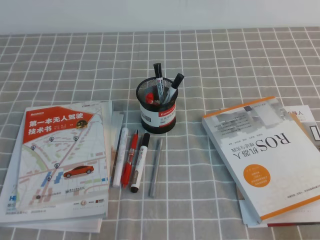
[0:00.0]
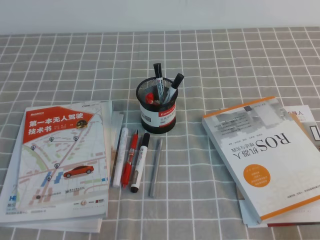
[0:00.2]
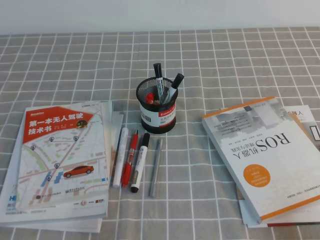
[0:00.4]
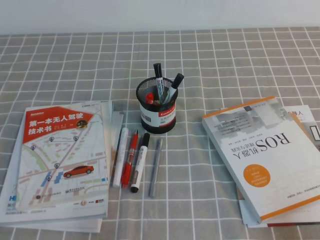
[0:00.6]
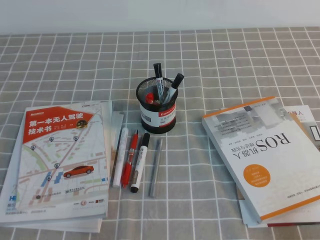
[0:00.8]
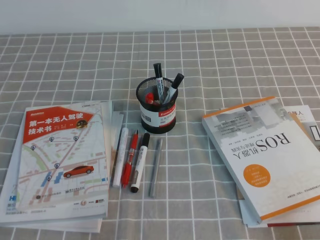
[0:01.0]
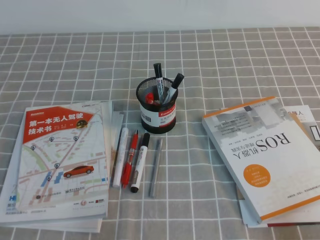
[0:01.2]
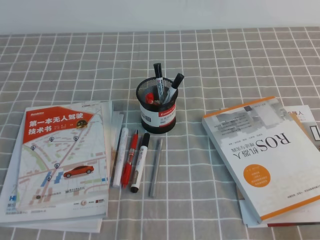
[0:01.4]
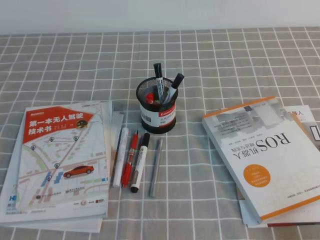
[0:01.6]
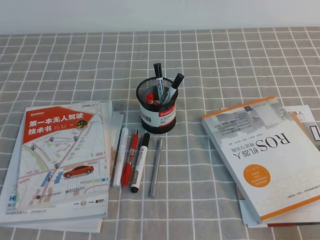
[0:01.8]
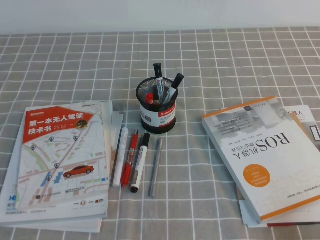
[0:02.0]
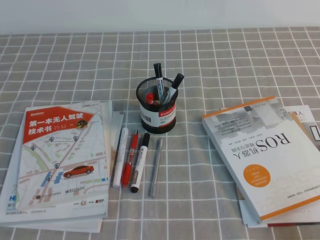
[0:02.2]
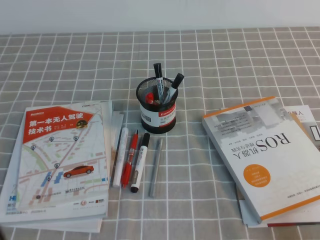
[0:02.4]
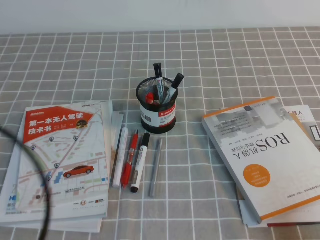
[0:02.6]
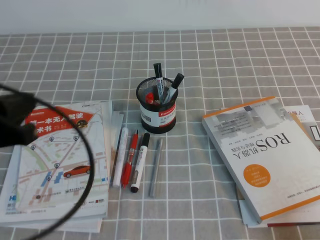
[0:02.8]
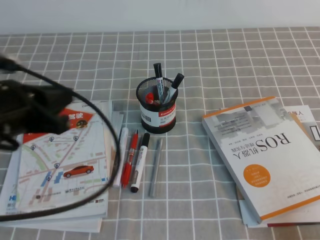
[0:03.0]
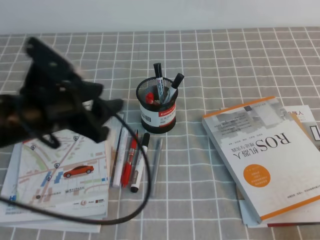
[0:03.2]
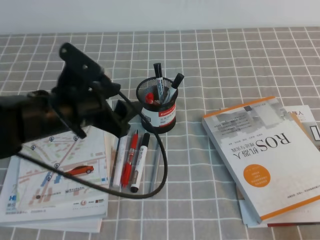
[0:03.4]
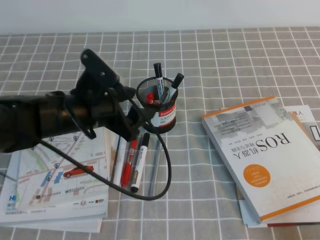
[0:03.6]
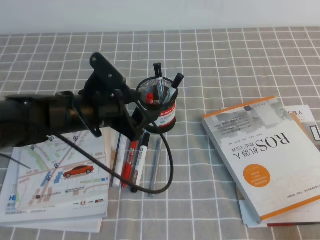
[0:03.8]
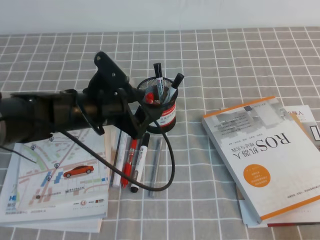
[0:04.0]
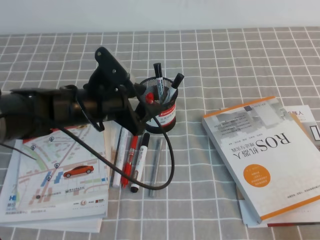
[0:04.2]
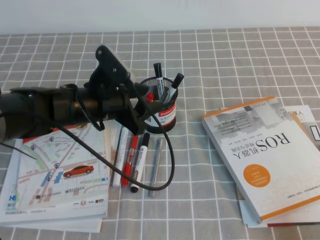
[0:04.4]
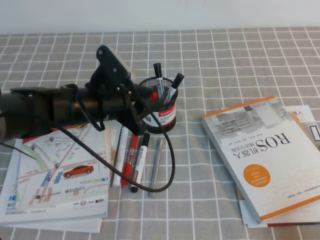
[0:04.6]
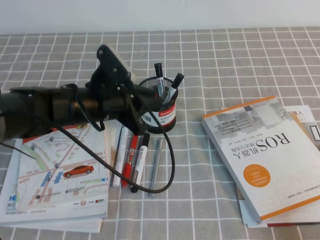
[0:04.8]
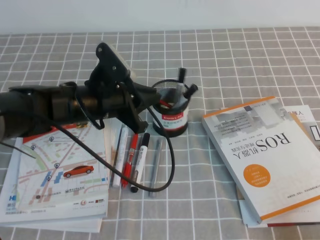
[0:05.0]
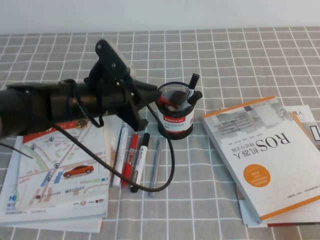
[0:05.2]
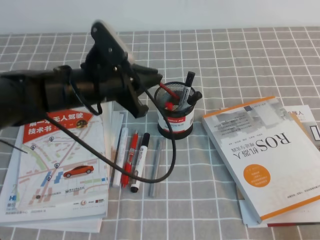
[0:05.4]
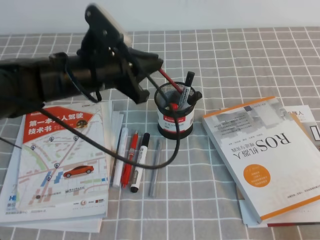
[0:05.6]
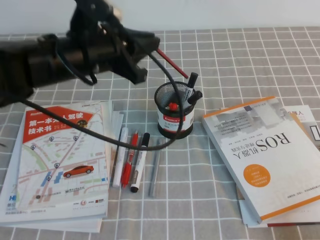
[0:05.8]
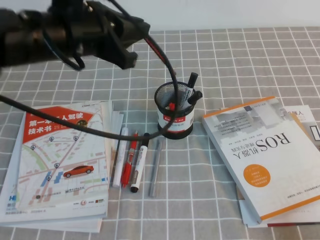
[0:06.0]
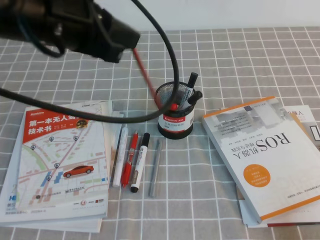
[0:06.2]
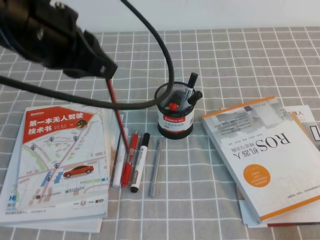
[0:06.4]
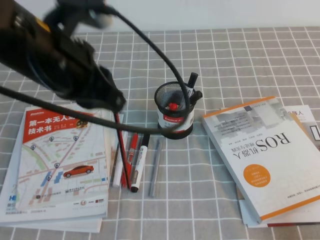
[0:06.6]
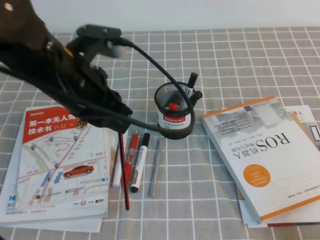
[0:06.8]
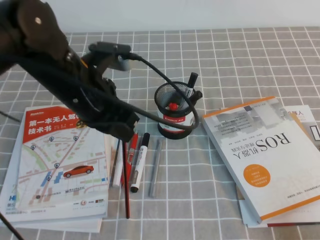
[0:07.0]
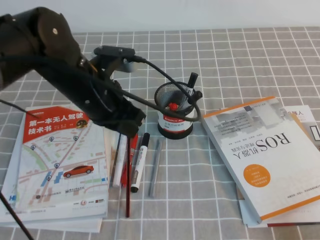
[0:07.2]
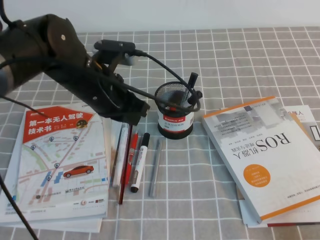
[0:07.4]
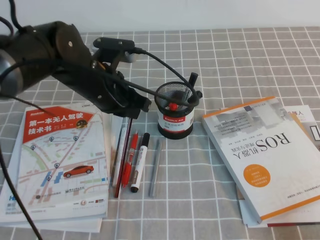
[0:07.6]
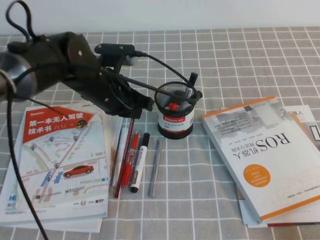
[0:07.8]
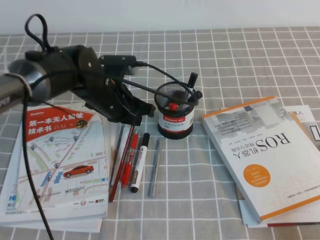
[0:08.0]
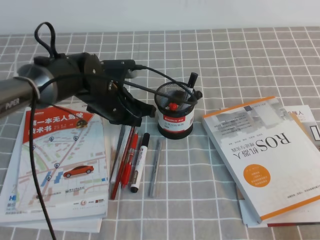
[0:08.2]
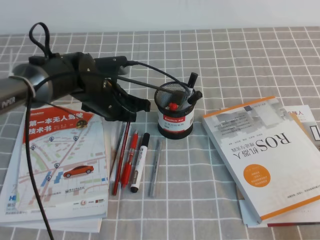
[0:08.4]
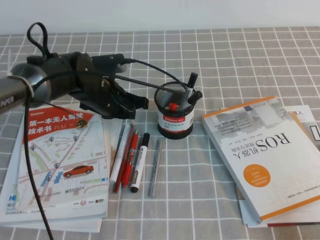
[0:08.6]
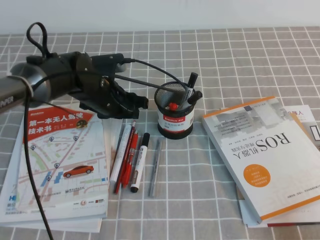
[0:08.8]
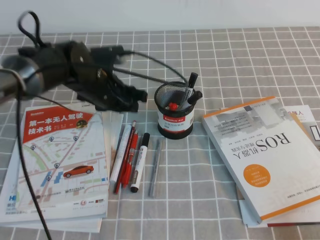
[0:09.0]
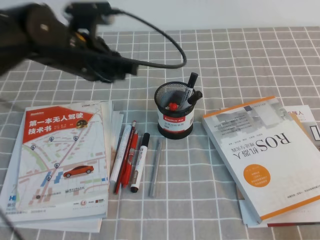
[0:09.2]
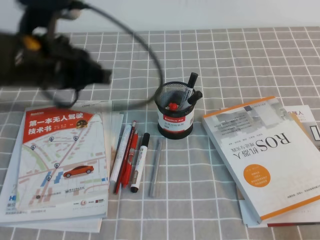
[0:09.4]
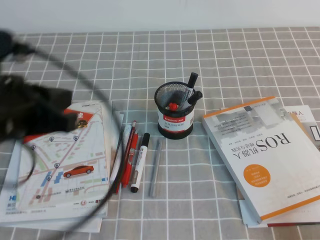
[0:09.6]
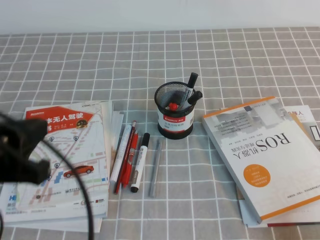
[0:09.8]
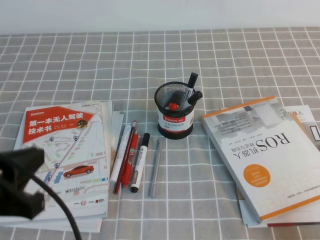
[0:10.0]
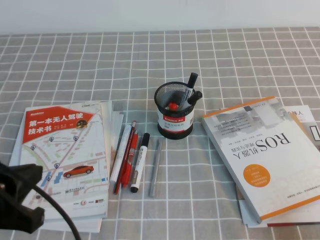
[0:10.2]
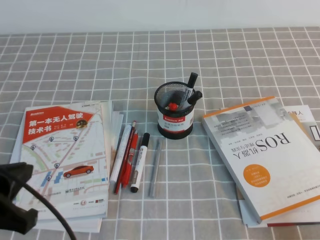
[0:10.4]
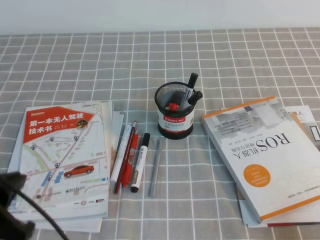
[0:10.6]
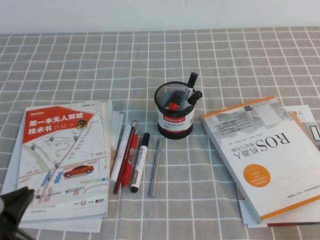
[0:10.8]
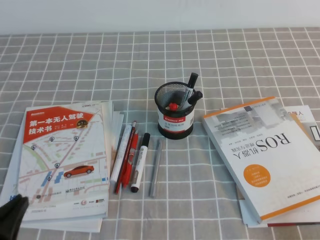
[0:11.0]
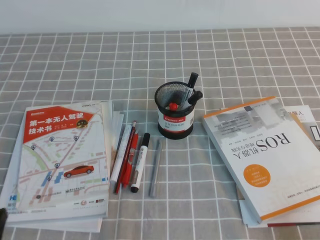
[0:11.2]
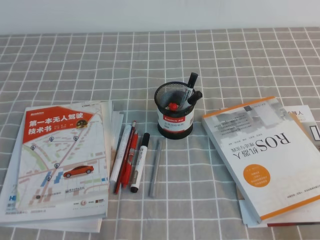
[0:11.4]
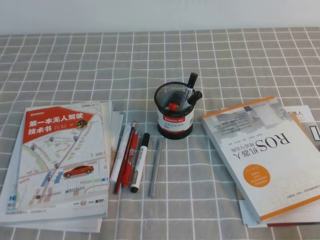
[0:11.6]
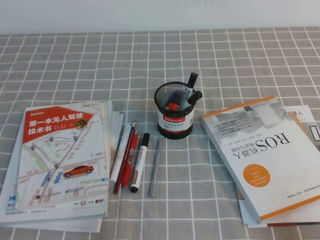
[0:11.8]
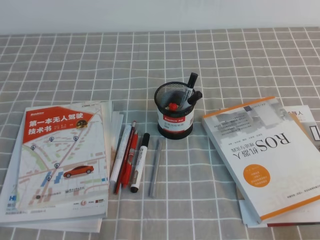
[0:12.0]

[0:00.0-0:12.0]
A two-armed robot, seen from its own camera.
0:01.6 to 0:03.0: The left gripper travels forward, upward and to the right by about 20 cm.
0:03.0 to 0:04.4: The left gripper is displaced forward, to the right and downward by some 20 cm, and opens its fingers.
0:04.4 to 0:06.0: The left gripper moves upward, some 15 cm, and closes up.
0:06.0 to 0:07.6: The left gripper heads downward, covering roughly 10 cm.
0:07.6 to 0:09.0: The left gripper opens.
0:09.0 to 0:10.4: The left gripper moves backward and to the left, approximately 30 cm, and closes its fingers.
0:10.4 to 0:12.0: The left gripper moves downward and backward, about 15 cm.

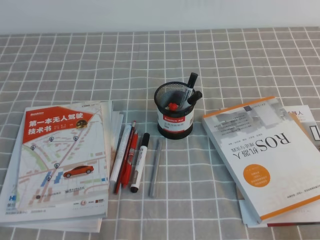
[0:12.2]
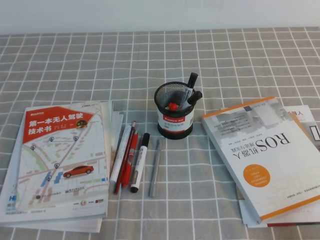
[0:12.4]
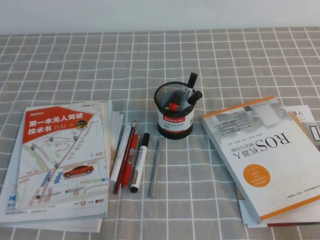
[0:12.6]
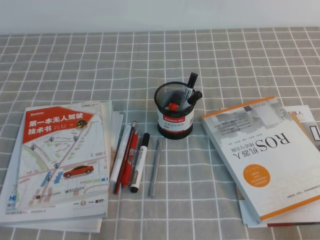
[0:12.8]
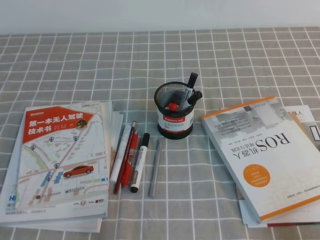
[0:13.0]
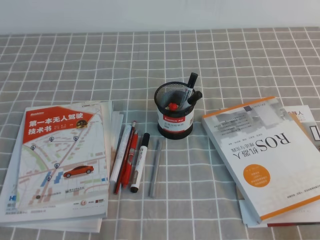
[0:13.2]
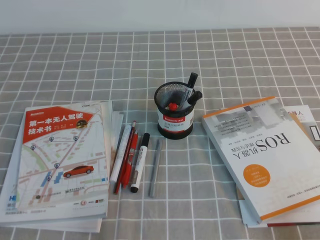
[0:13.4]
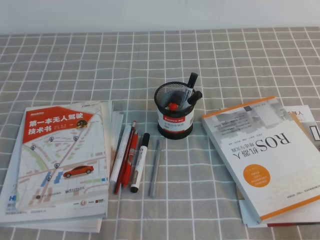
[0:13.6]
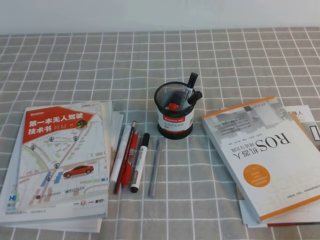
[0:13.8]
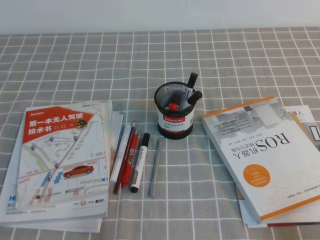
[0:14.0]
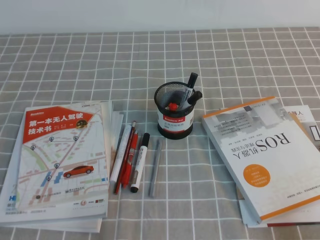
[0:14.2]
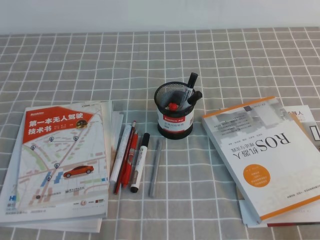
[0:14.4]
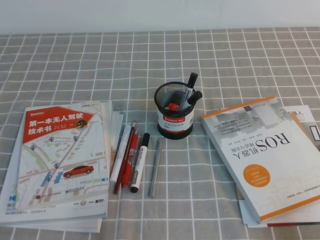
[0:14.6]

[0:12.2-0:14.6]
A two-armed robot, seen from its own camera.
0:12.2 to 0:14.6: Neither gripper changes place.

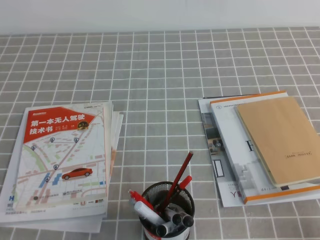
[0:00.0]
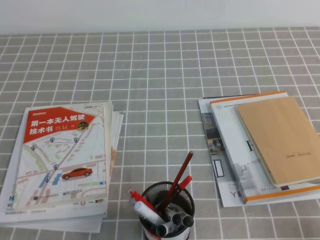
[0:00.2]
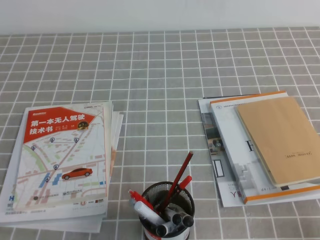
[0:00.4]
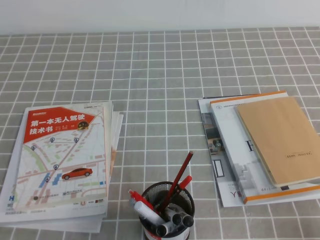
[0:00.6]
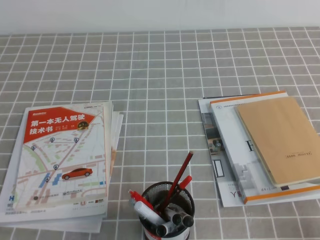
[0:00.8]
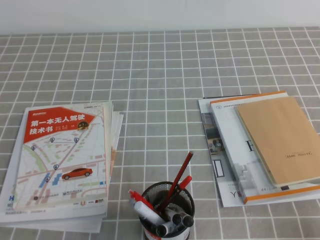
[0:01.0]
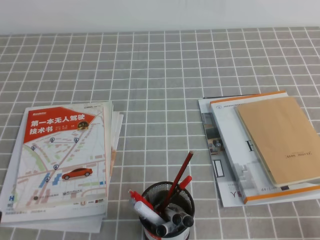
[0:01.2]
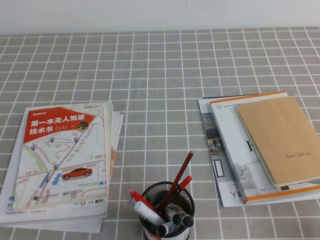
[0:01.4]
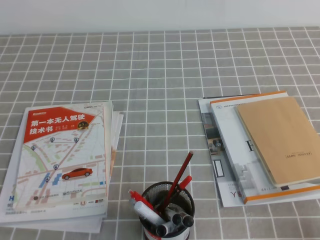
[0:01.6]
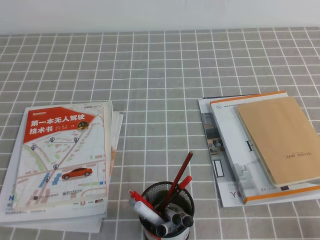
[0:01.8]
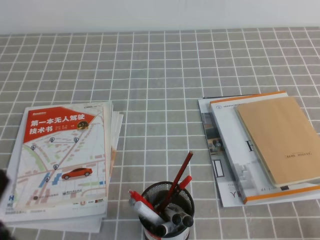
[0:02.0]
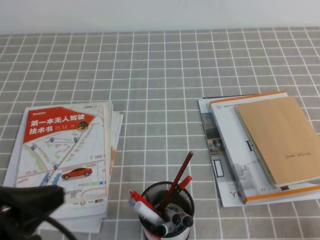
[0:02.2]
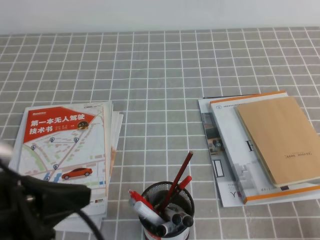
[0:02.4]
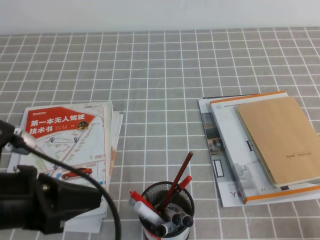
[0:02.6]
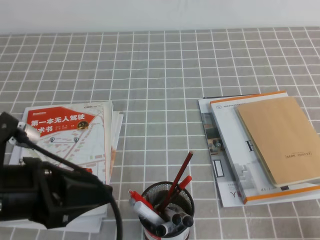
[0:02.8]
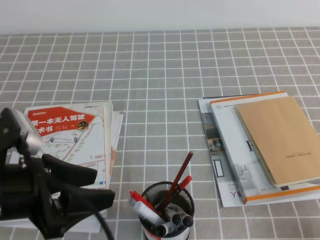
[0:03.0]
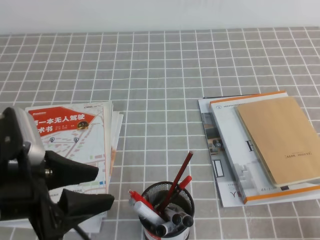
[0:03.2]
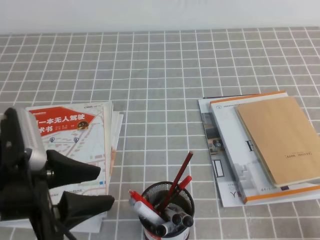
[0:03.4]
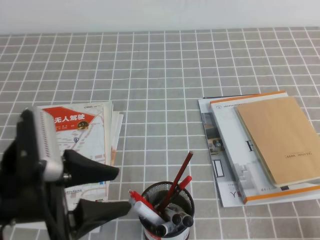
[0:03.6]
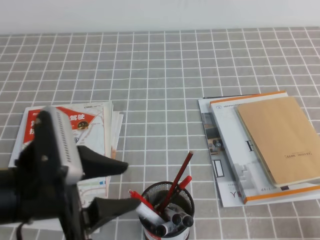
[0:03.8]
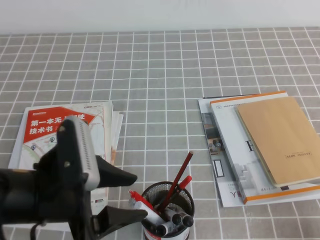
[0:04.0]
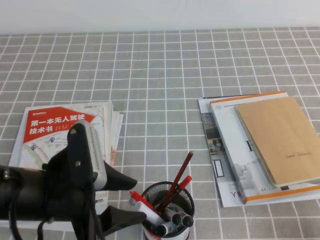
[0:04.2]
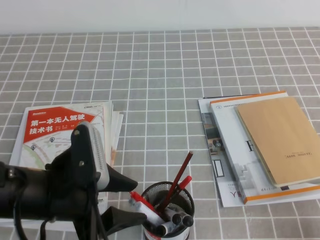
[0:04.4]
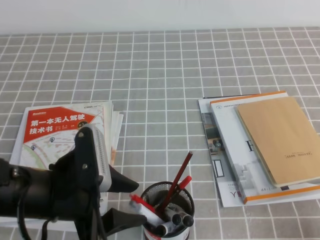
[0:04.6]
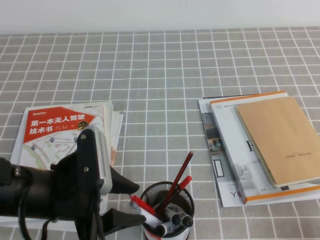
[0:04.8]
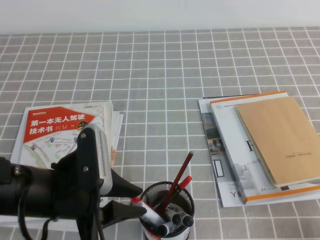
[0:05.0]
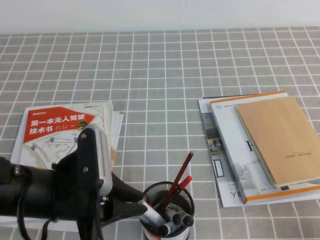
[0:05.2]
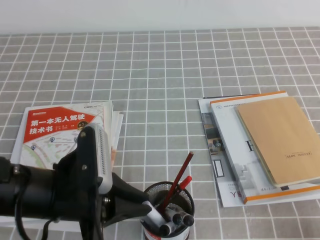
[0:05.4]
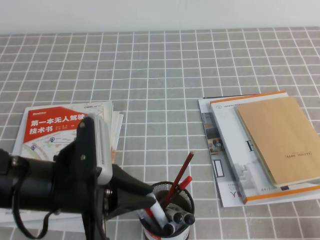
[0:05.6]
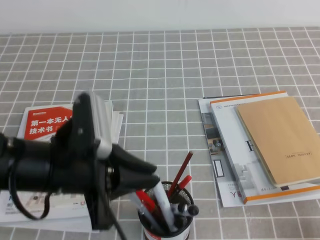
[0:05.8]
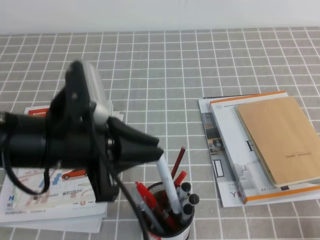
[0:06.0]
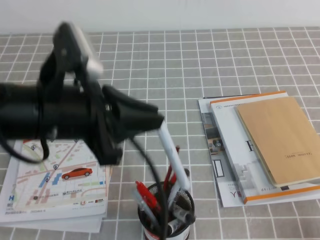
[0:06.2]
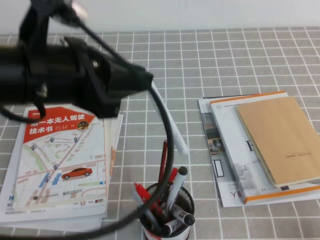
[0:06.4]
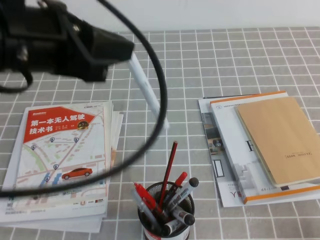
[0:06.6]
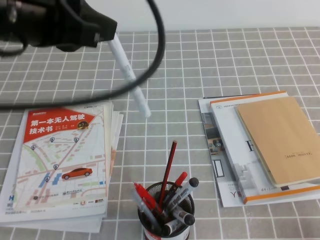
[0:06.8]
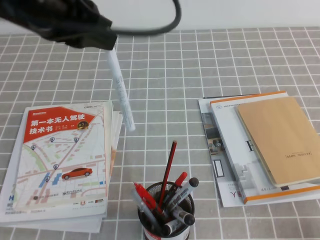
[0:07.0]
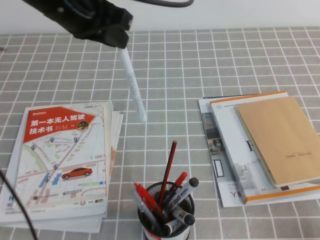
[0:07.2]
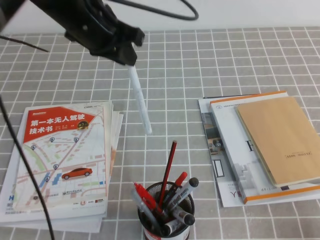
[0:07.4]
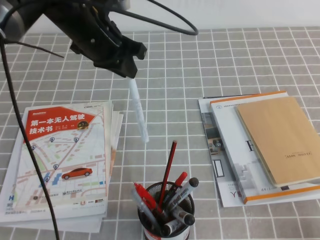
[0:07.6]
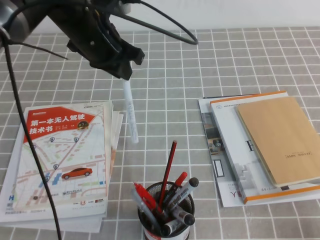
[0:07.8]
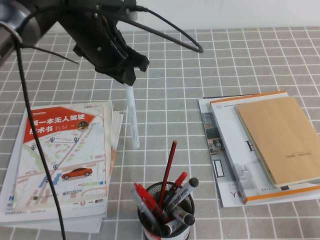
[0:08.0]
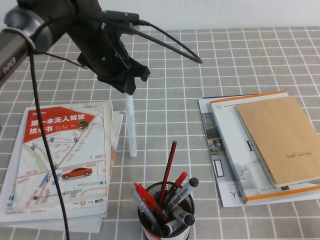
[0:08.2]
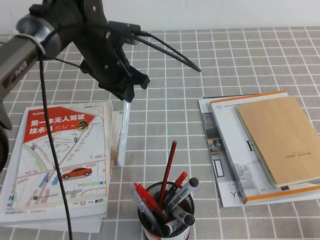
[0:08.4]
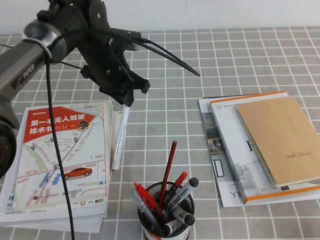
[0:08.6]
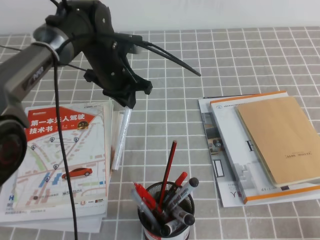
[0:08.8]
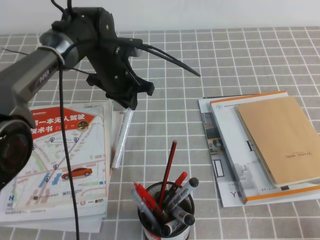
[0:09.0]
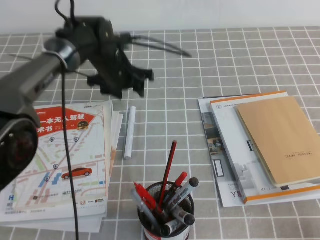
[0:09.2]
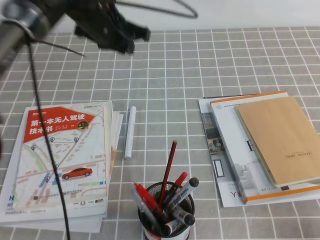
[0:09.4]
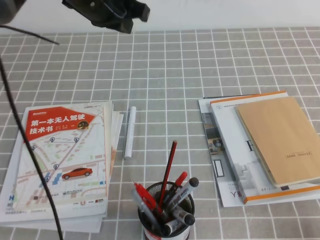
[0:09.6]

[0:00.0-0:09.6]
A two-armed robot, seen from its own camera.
0:01.6 to 0:03.2: The left gripper goes approximately 15 cm forward, upward and to the right, and opens up.
0:03.2 to 0:04.8: The left gripper changes place by about 5 cm.
0:04.8 to 0:06.4: The left gripper goes approximately 15 cm upward, and closes up.
0:06.4 to 0:08.0: The left gripper moves forward, about 20 cm.
0:08.0 to 0:09.6: The left gripper travels upward by roughly 5 cm, and opens, then closes once more.
